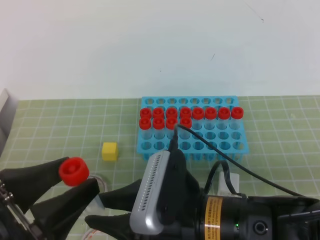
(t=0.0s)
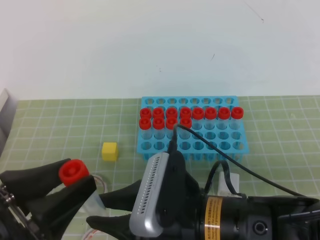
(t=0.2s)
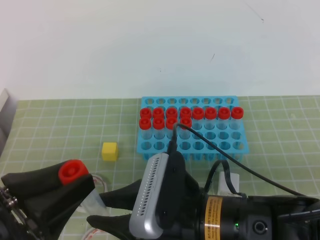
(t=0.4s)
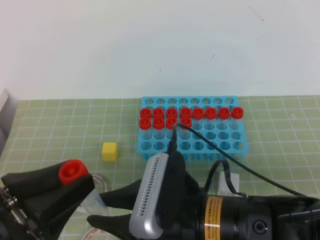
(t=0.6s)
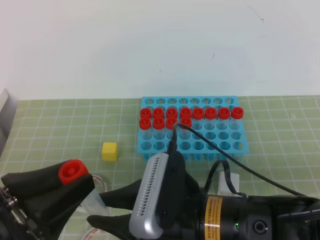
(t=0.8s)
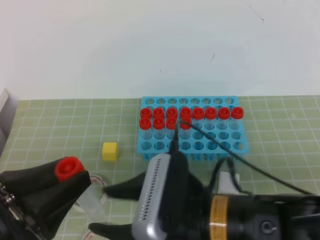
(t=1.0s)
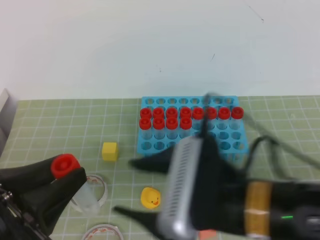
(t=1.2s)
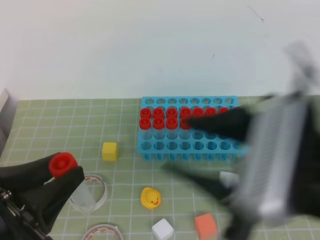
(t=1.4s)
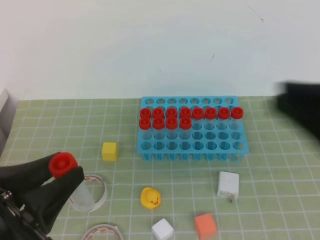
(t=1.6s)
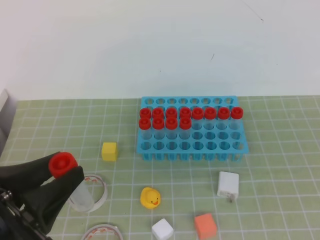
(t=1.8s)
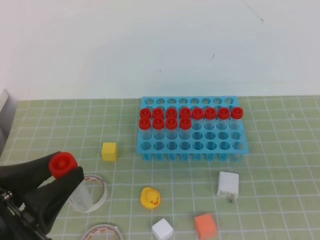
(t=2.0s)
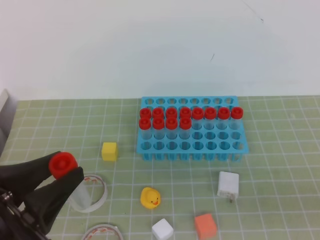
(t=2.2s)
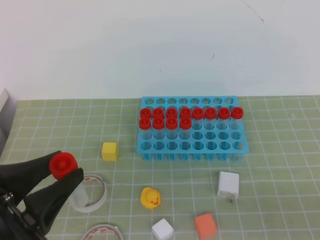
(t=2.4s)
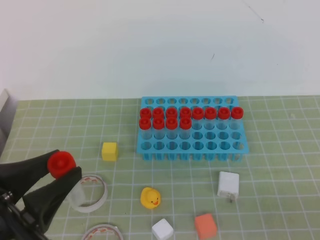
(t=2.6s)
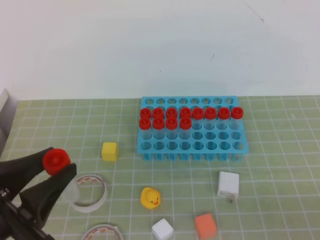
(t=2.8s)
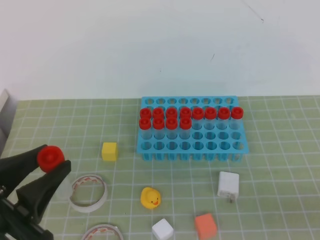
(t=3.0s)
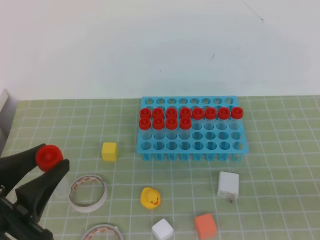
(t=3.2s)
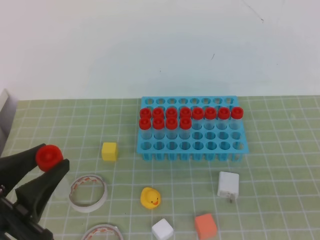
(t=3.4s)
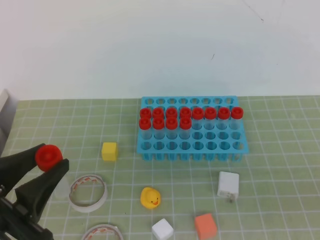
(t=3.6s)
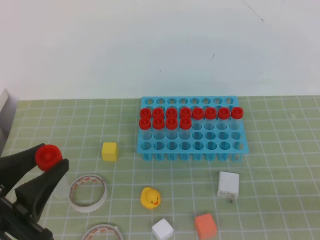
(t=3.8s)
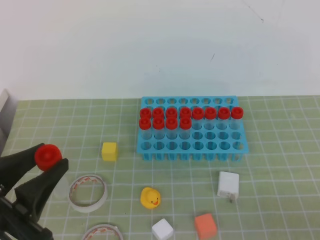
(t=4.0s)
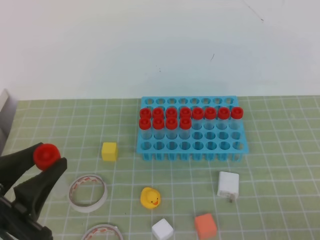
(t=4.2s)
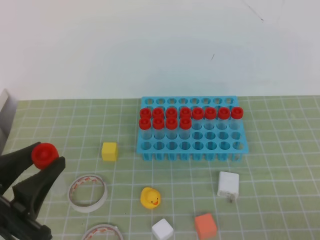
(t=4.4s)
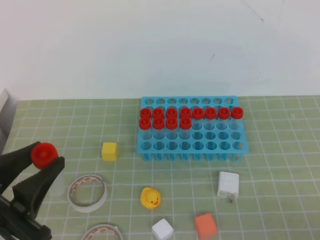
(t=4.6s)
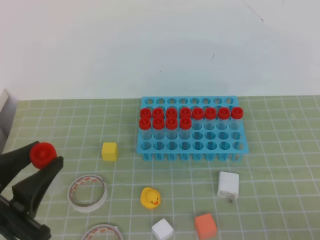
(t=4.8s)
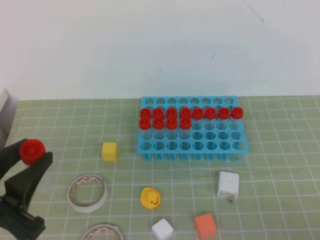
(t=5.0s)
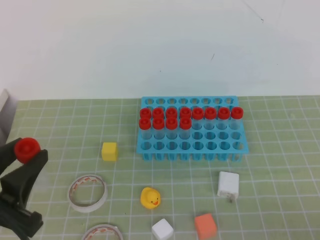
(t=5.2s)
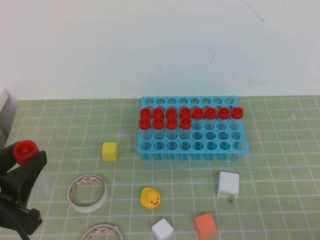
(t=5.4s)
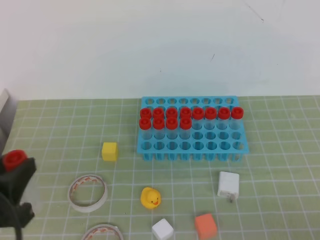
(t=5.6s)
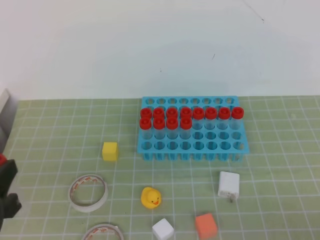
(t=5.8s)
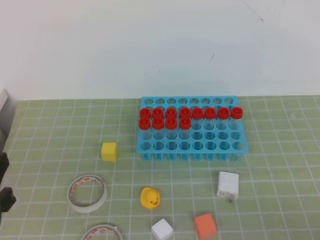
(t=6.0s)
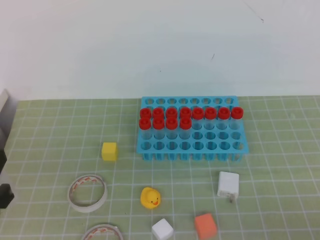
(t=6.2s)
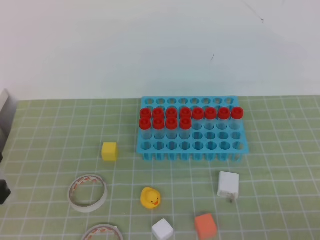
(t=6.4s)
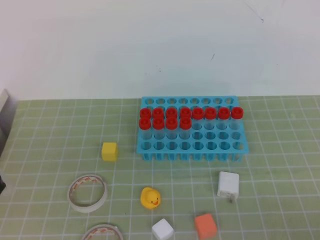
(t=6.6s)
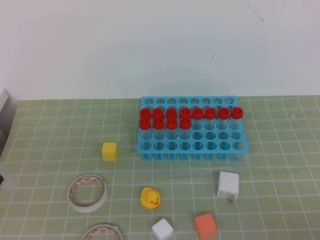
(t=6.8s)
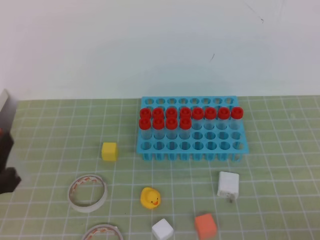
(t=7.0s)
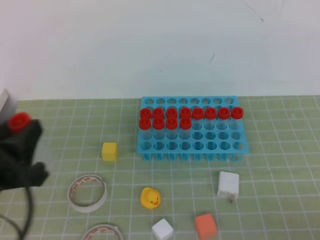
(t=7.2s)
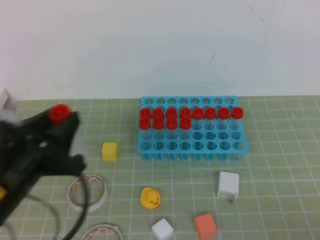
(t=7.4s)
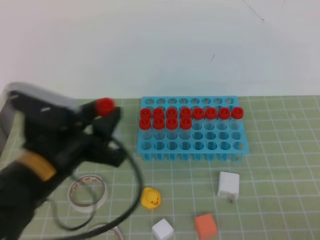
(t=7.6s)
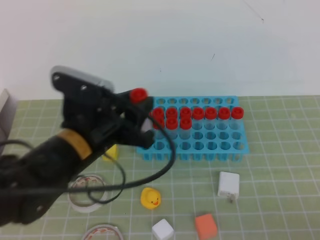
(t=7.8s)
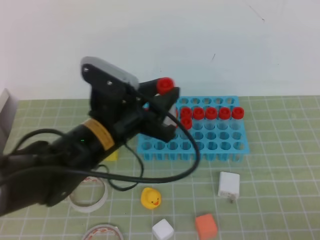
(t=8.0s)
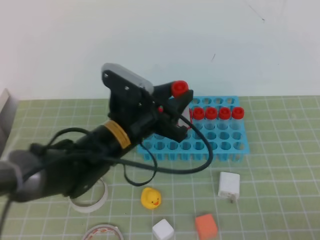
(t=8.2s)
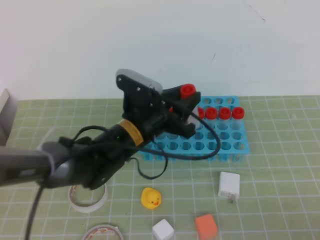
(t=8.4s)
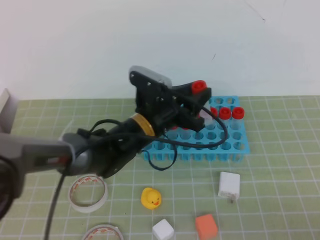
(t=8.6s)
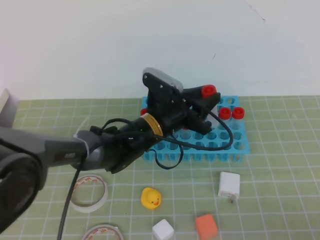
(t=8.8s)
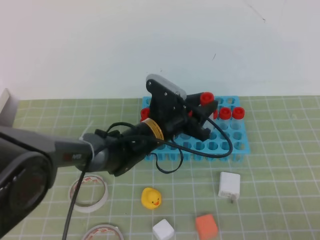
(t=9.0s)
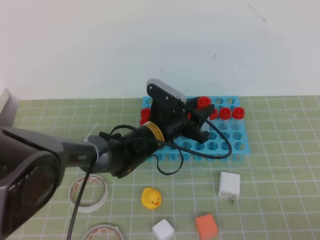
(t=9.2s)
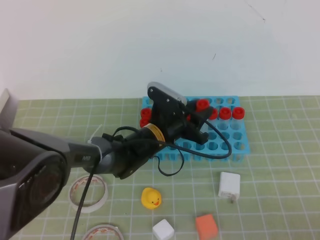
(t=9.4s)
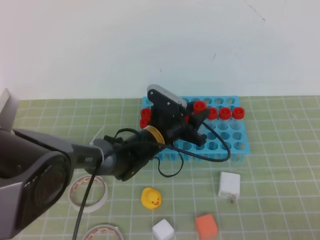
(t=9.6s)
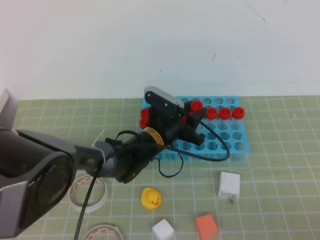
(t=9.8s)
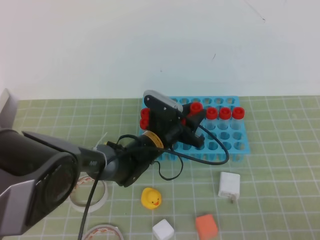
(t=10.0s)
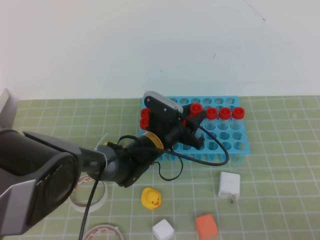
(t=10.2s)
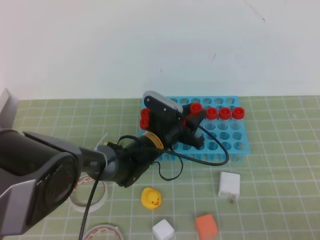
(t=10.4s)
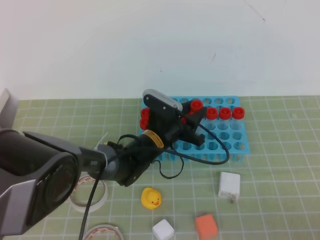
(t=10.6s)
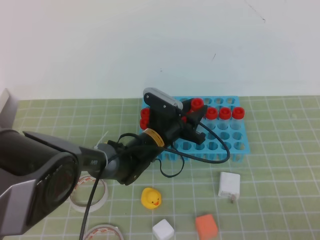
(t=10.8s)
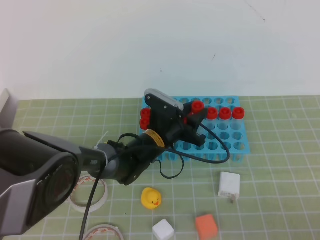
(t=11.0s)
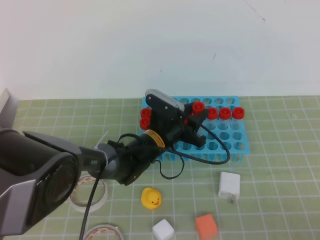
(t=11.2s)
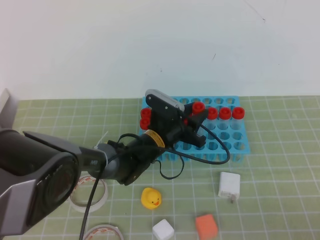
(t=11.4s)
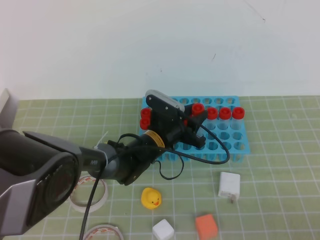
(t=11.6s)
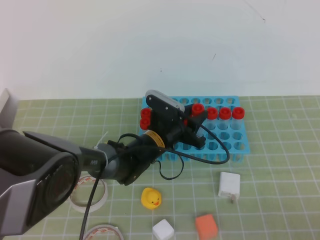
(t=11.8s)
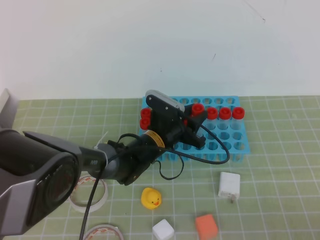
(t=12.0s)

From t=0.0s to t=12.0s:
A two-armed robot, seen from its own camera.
From t=0.0s to t=1.6s: The right gripper goes about 20 cm to the right and upward, and opens, then closes again. Meanwhile the left gripper closes up.
From t=1.6s to t=3.0s: The right gripper is displaced downward, to the right and backward by approximately 15 cm, and closes up.
From t=6.0s to t=7.6s: The left gripper travels to the right and forward by approximately 15 cm.
From t=7.6s to t=9.0s: The left gripper is displaced forward, to the right and downward by about 25 cm.
From t=9.0s to t=10.4s: The left gripper goes approximately 5 cm downward.
From t=10.4s to t=12.0s: Neither gripper changes place.

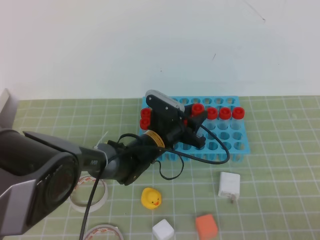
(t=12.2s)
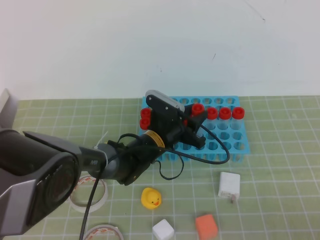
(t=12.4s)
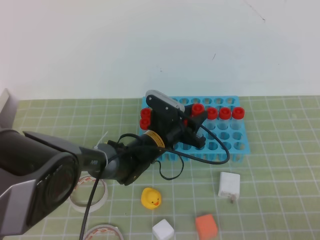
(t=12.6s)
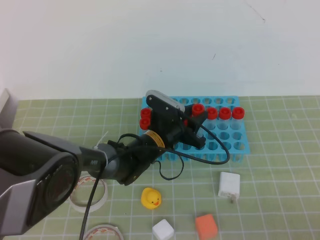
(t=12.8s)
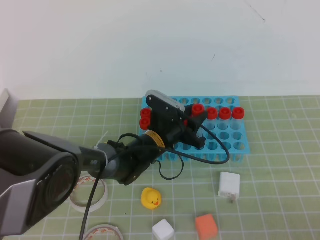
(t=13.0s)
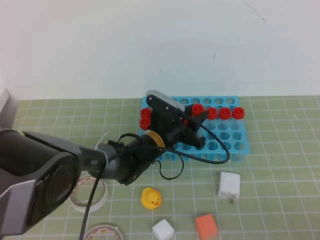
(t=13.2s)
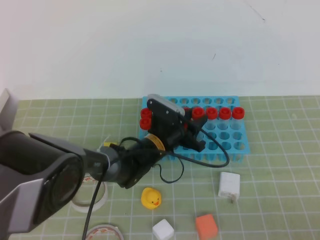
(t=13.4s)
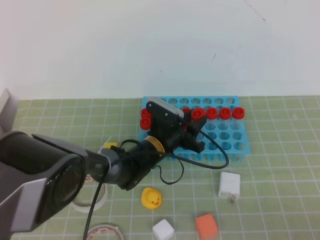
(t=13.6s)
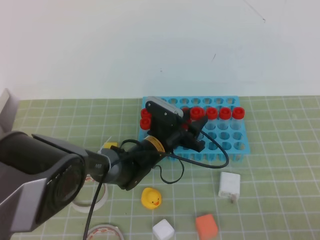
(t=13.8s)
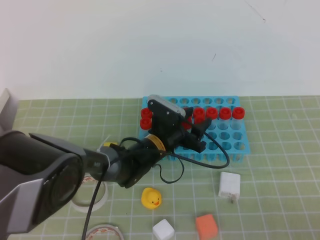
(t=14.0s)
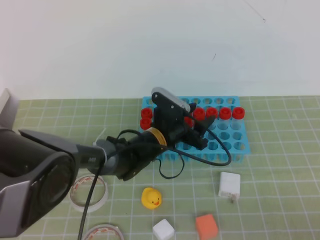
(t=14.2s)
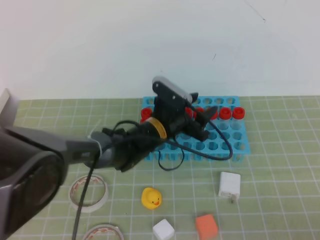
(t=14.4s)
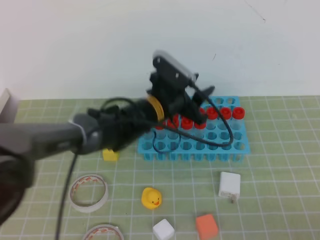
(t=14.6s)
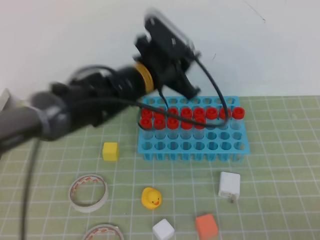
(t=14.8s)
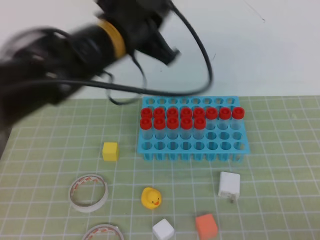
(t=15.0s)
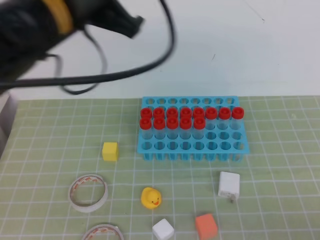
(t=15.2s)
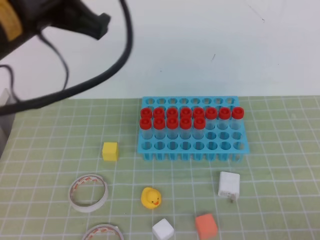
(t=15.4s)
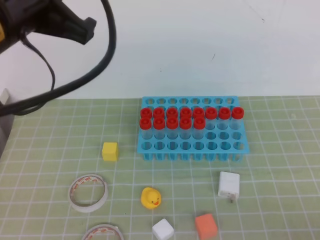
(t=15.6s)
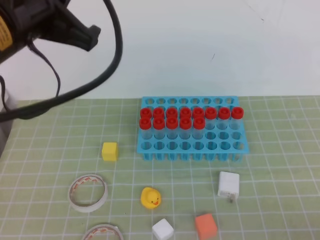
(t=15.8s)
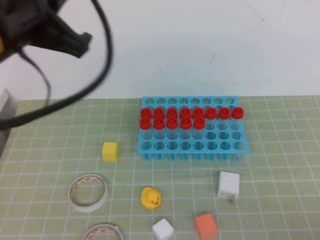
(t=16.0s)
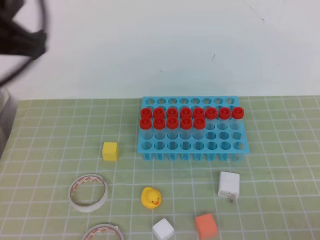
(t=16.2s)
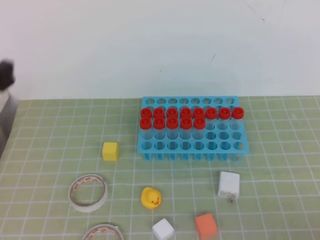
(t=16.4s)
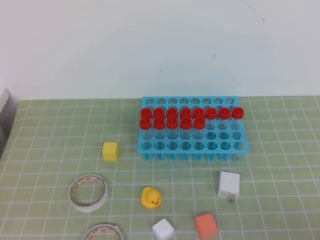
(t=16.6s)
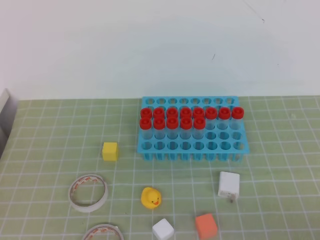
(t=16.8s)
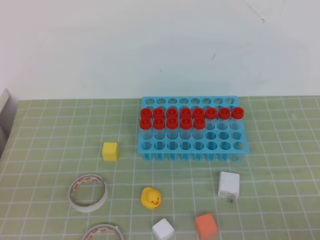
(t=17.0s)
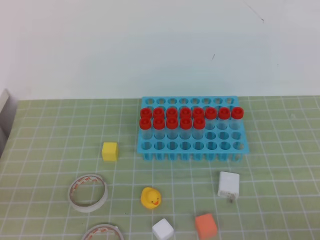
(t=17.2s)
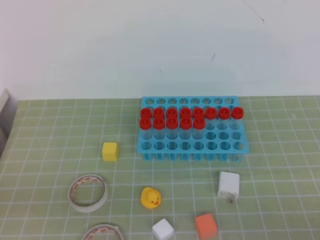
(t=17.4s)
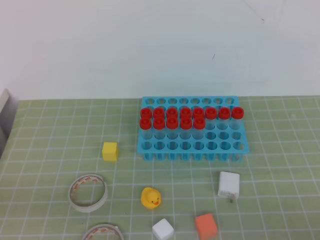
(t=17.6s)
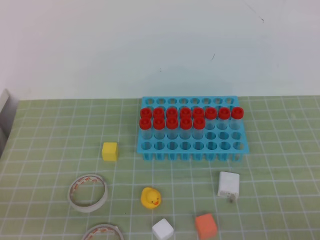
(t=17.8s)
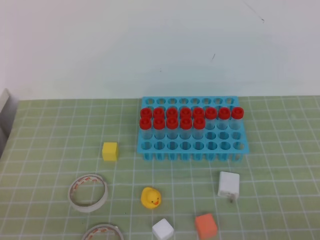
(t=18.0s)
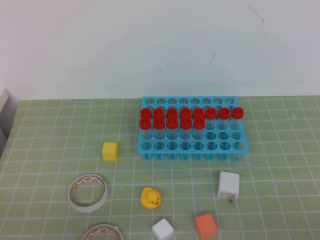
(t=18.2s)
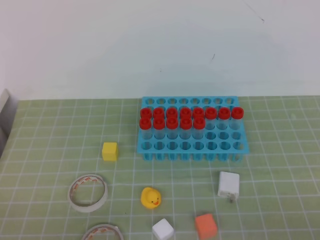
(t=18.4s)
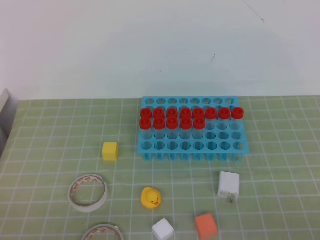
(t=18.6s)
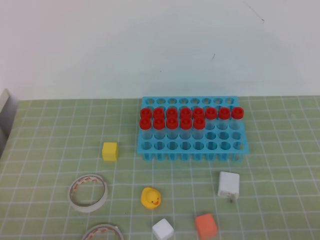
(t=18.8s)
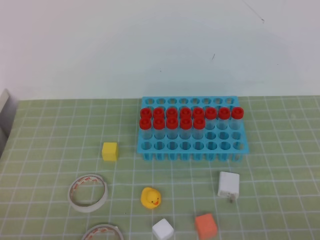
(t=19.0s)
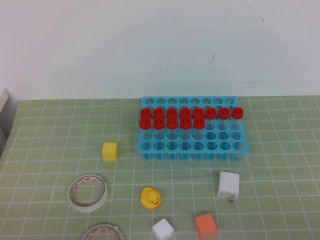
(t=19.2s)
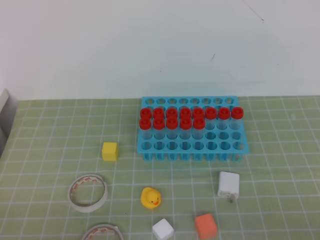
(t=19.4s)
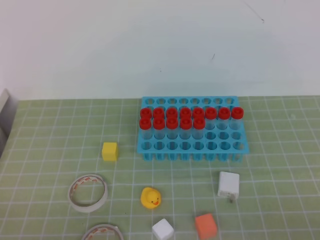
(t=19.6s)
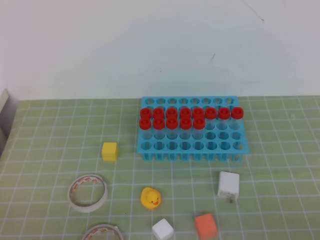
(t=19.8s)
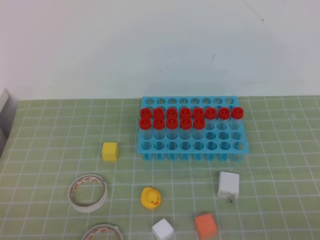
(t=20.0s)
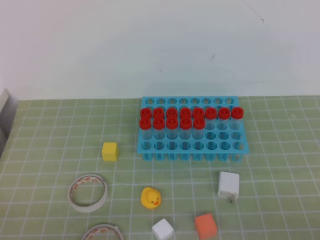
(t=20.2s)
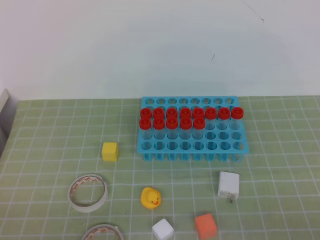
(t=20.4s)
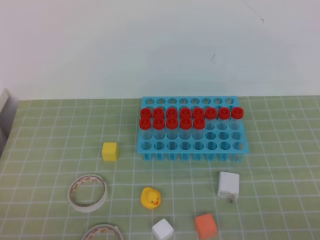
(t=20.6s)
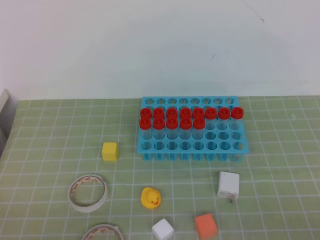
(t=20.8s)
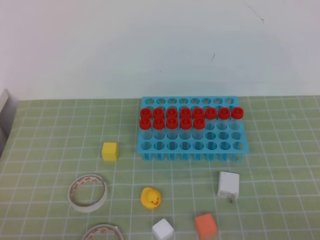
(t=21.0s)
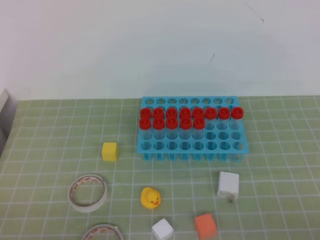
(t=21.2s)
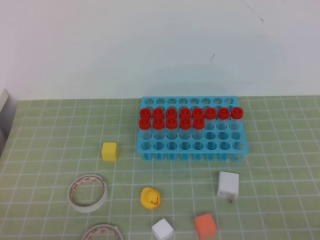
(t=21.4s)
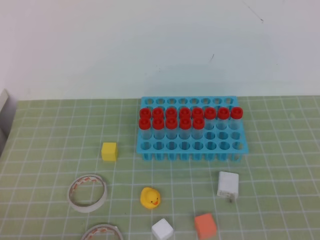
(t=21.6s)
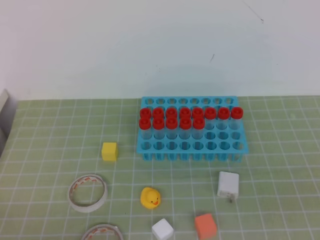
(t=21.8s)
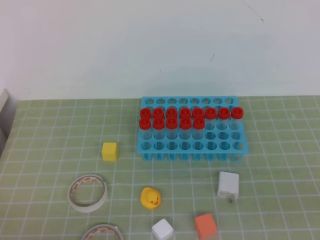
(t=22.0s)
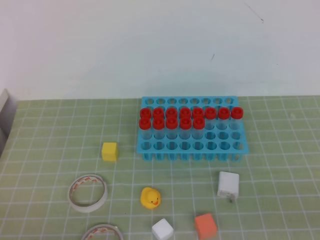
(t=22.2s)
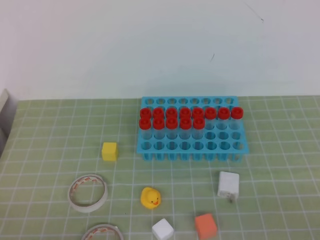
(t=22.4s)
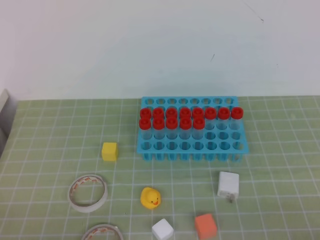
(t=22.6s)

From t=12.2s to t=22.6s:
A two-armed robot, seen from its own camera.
From t=12.2s to t=13.6s: The grippers move only a little.
From t=13.6s to t=15.2s: The left gripper travels upward by about 35 cm, and closes its fingers.
From t=15.2s to t=16.6s: The left gripper moves backward and to the left, about 20 cm.
From t=16.6s to t=18.2s: The left gripper heads downward, covering some 20 cm.
From t=19.6s to t=21.2s: Both grippers stay about where they are.
